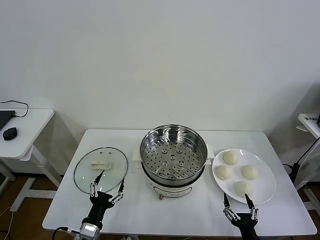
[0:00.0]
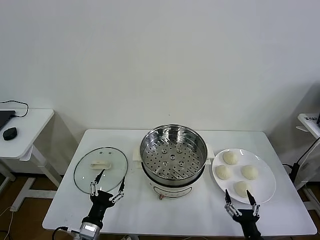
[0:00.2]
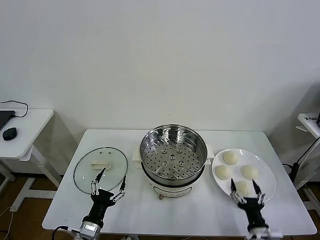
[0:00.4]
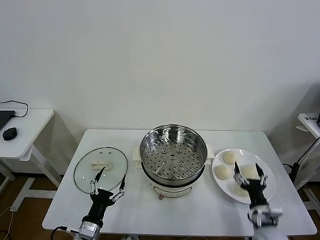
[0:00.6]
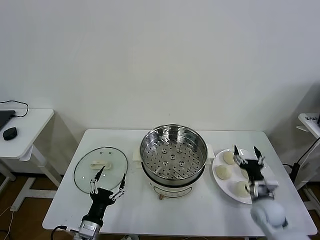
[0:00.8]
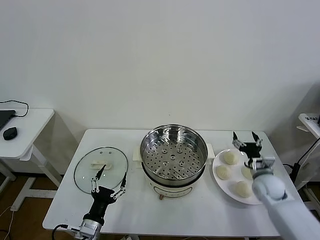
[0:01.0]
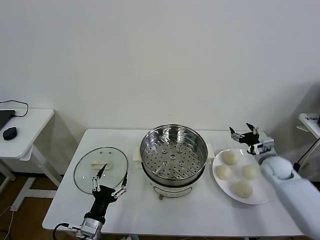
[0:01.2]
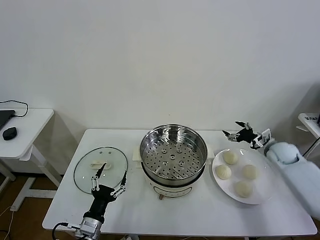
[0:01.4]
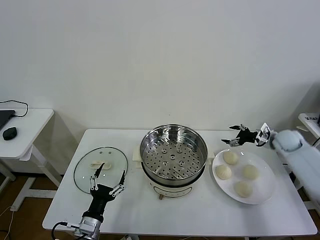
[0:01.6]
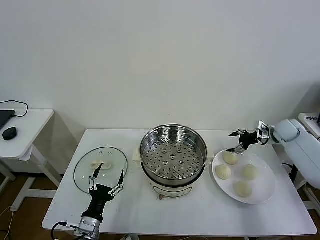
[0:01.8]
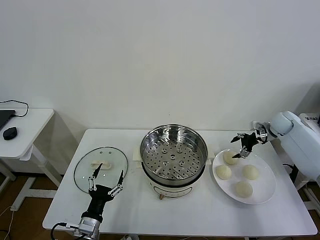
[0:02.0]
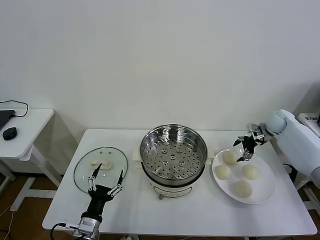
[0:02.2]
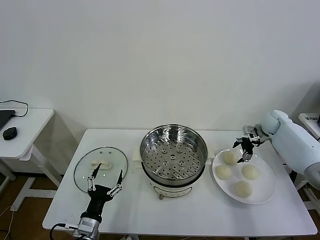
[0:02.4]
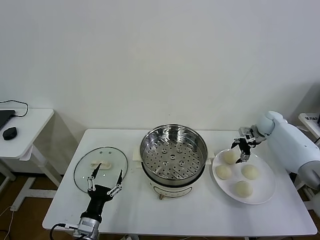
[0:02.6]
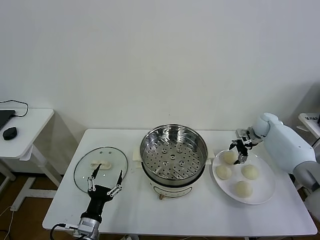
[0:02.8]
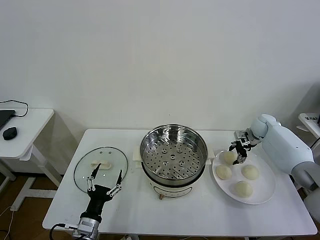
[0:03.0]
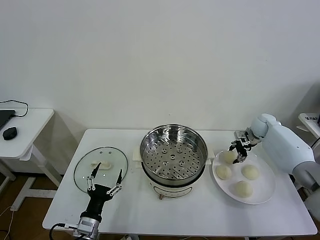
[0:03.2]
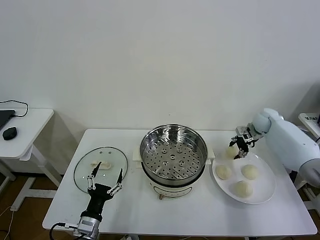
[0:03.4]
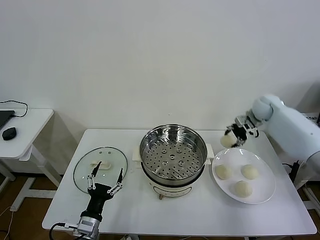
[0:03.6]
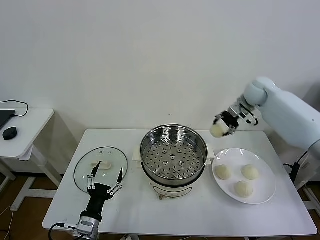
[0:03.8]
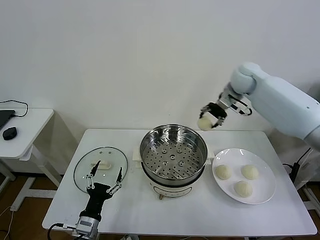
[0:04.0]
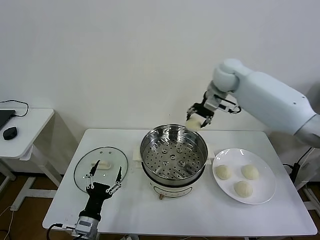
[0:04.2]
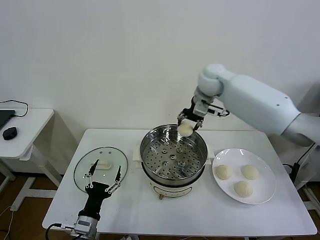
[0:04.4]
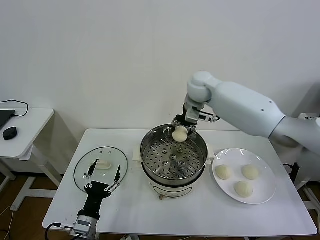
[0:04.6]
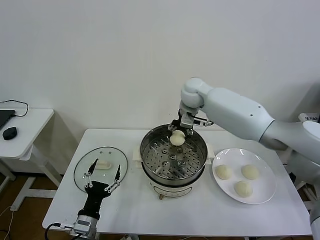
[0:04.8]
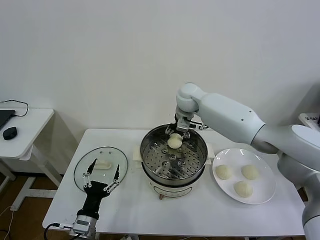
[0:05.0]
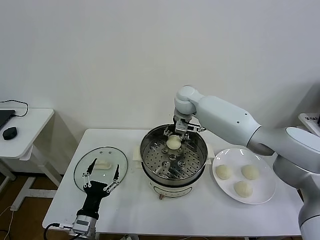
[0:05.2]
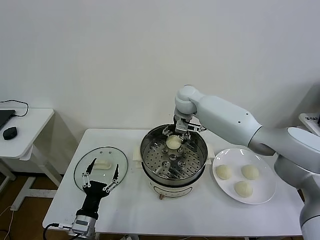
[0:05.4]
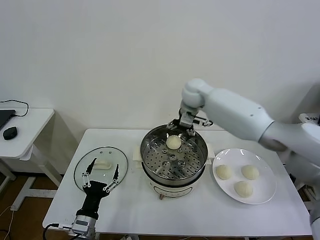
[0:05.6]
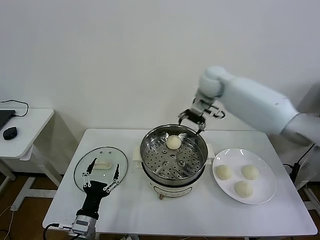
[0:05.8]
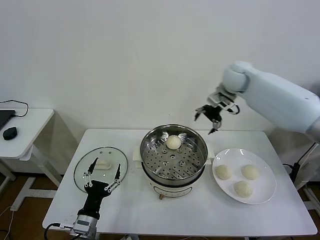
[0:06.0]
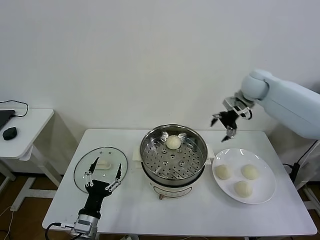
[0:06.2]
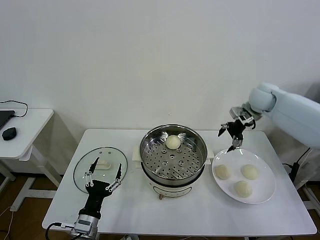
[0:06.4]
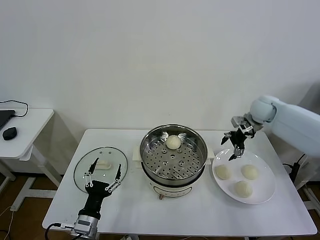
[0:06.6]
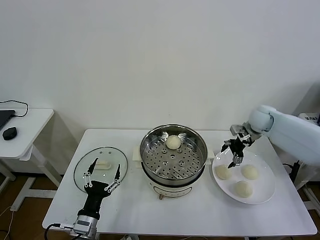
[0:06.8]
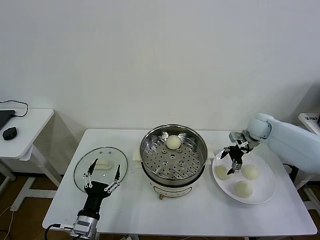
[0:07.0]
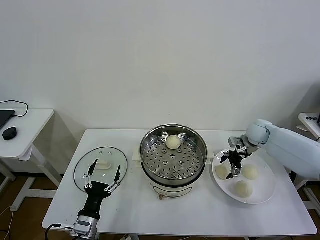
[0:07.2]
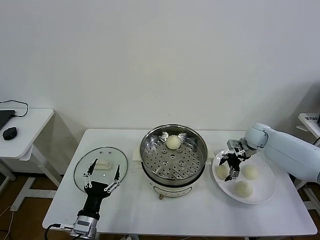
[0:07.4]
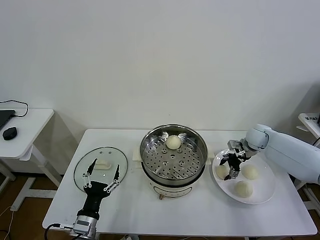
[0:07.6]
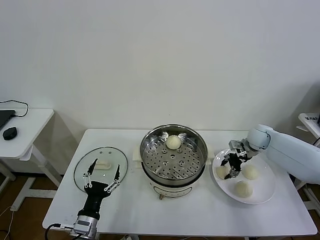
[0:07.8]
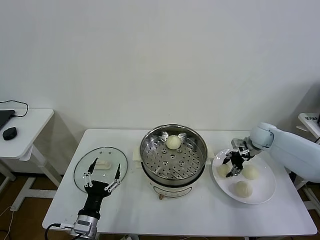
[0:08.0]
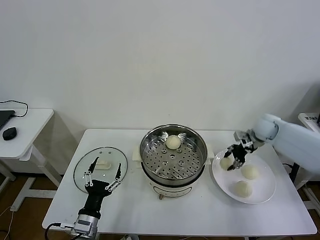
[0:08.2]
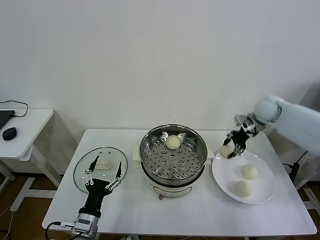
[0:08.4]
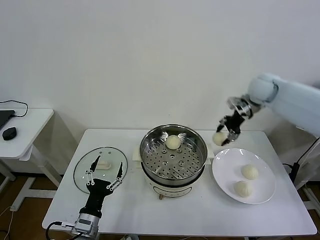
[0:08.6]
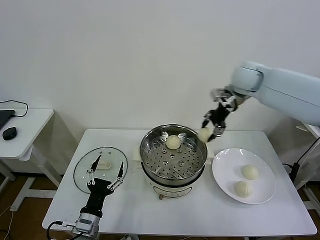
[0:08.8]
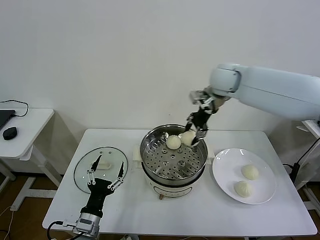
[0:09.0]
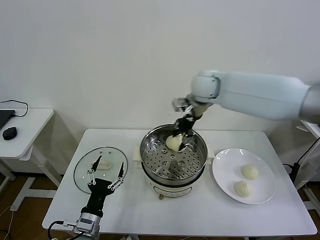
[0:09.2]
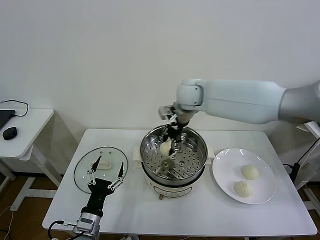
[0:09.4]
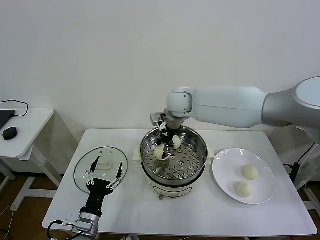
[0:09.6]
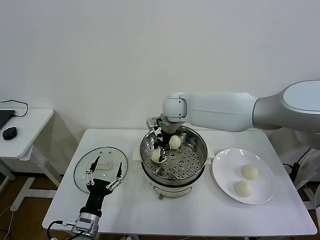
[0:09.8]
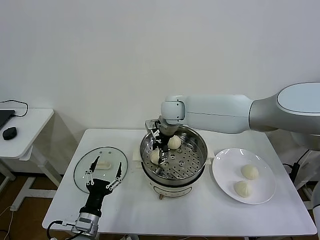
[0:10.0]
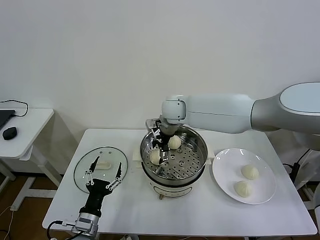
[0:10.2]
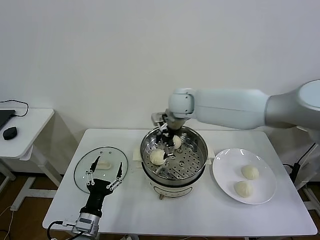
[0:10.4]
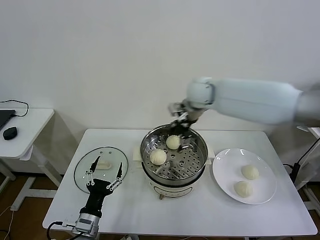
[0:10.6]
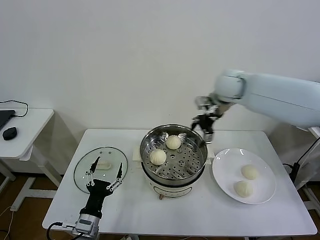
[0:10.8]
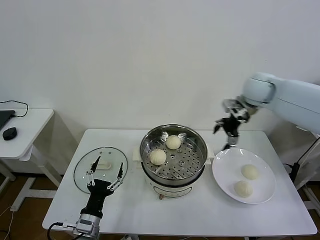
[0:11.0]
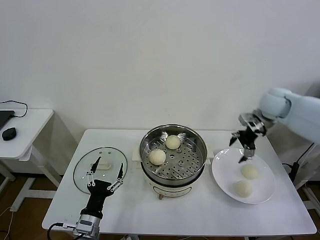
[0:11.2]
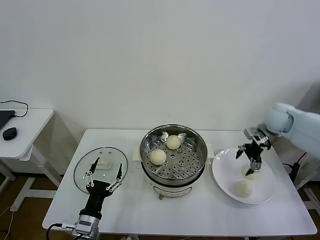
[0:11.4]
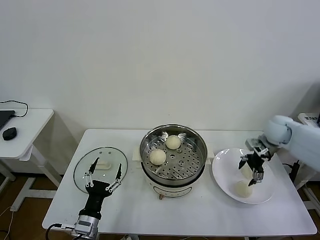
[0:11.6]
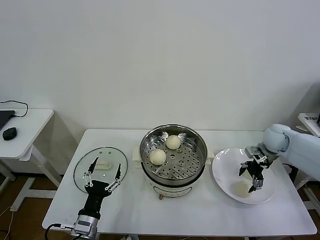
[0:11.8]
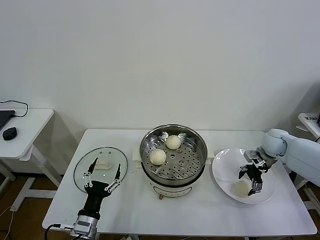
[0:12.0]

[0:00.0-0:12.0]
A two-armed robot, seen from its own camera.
Task of the whole recording: take steamed baozi put them in steamer then cover it.
Step, 0.0 to 3.0 s: Grasp the baozi in the plate with right gripper.
Step, 3.2 to 5.2 s: Place the baozi on the steamer with right gripper.
Step, 5.6 to 7.6 s: Grasp the baozi in the plate with right gripper.
Step, 7.8 to 10.0 s: Place the baozi on the steamer with right gripper.
1.6 to 3.0 s: The right gripper moves to the left and forward, about 10 cm, and closes.
3.0 to 4.4 s: The right gripper moves to the left and upward, some 35 cm.
4.4 to 6.0 s: The right gripper goes some 20 cm to the right, and opens its fingers.
6.0 to 7.6 s: The right gripper goes roughly 20 cm downward, and closes up.
7.6 to 9.0 s: The right gripper is displaced to the left and upward by approximately 35 cm.
9.0 to 10.4 s: The right gripper opens its fingers.
10.4 to 12.0 s: The right gripper travels to the right and downward by roughly 35 cm.

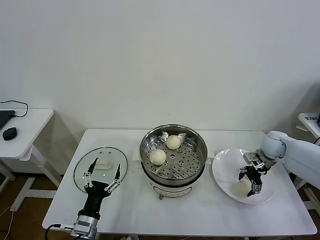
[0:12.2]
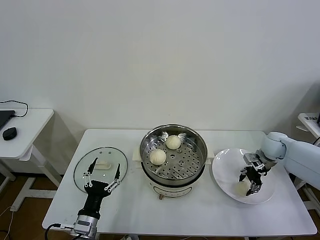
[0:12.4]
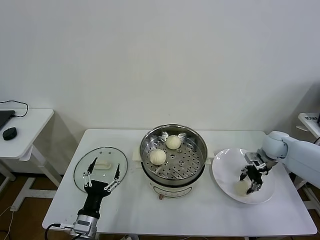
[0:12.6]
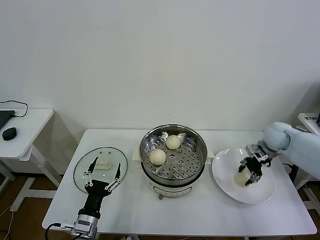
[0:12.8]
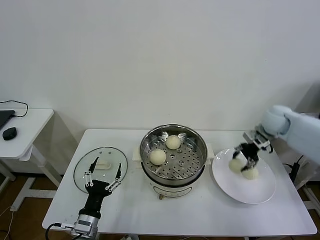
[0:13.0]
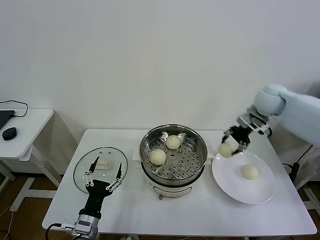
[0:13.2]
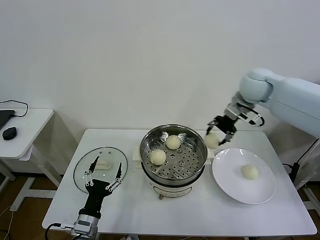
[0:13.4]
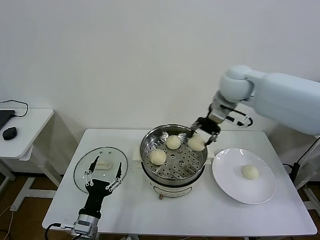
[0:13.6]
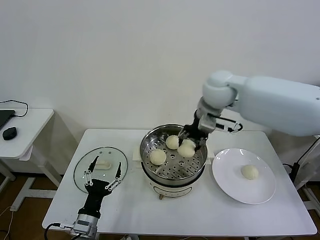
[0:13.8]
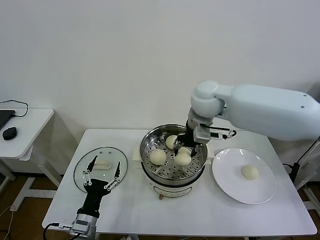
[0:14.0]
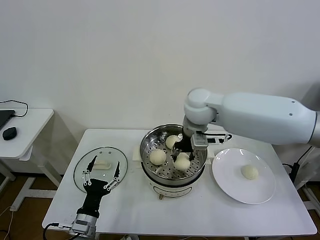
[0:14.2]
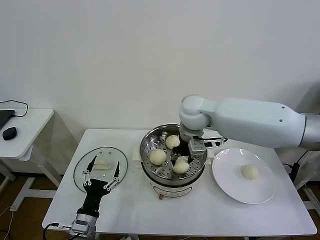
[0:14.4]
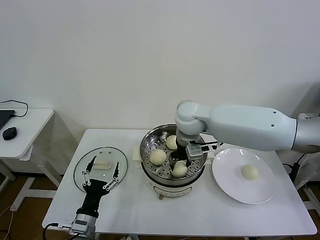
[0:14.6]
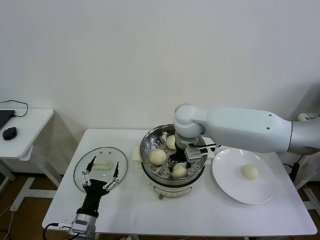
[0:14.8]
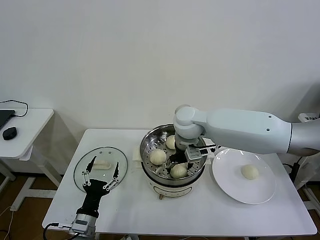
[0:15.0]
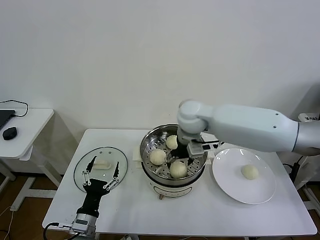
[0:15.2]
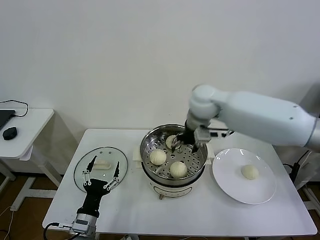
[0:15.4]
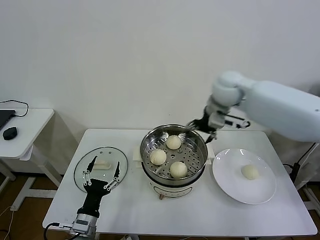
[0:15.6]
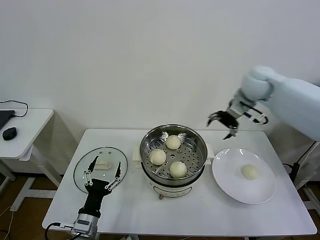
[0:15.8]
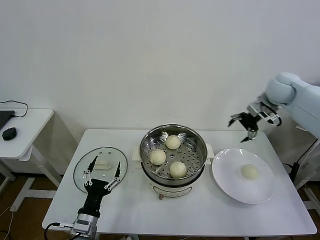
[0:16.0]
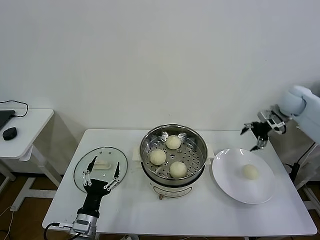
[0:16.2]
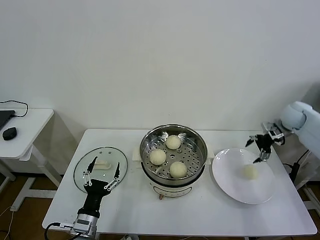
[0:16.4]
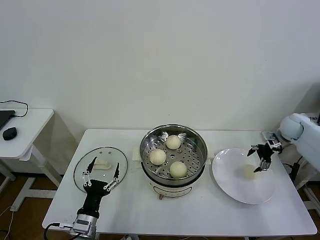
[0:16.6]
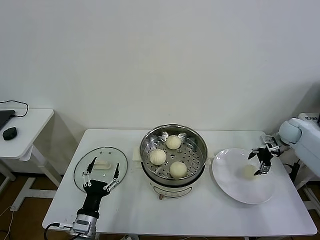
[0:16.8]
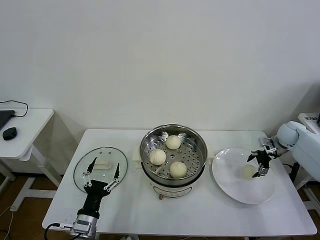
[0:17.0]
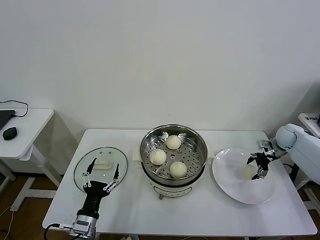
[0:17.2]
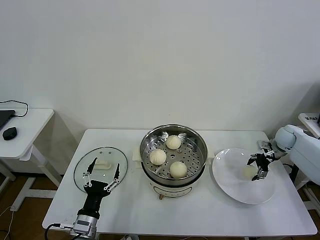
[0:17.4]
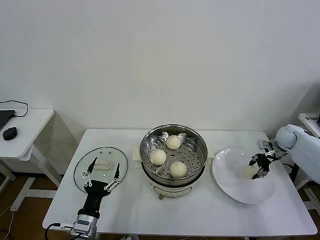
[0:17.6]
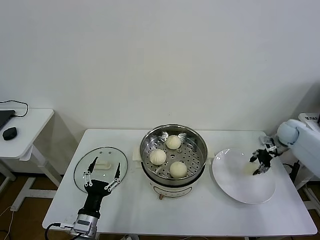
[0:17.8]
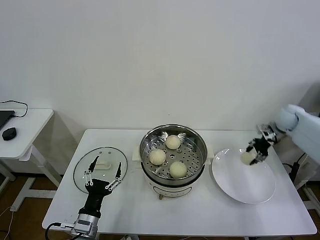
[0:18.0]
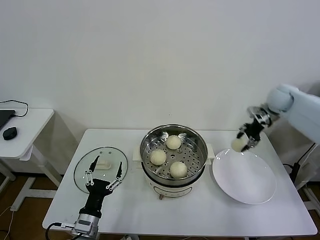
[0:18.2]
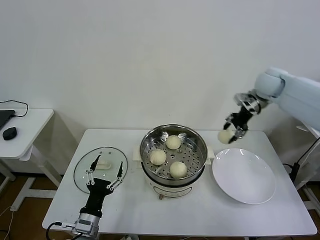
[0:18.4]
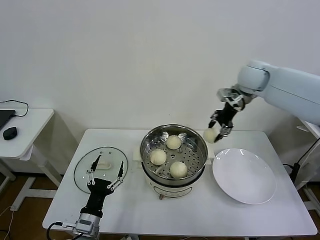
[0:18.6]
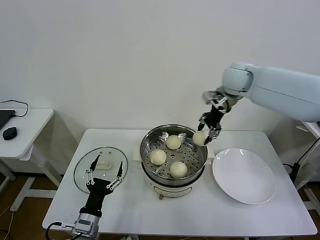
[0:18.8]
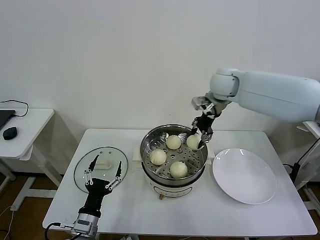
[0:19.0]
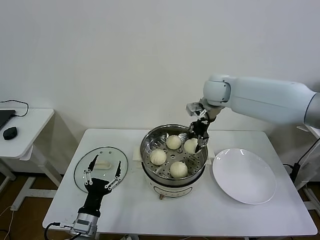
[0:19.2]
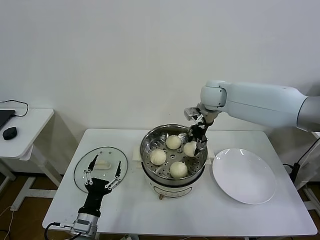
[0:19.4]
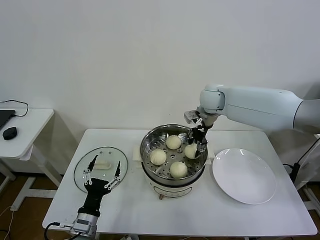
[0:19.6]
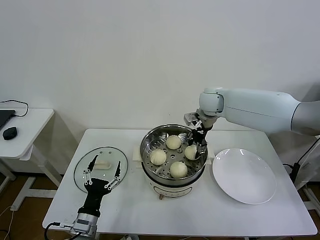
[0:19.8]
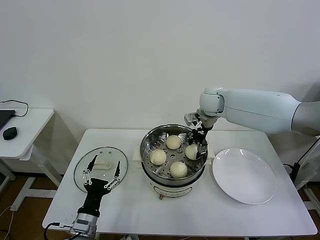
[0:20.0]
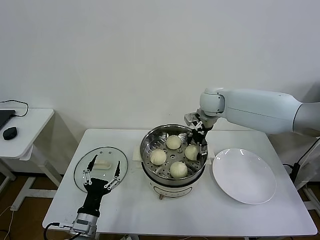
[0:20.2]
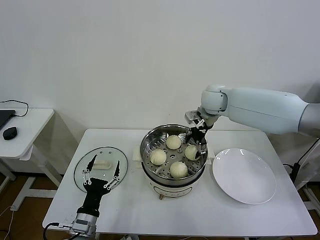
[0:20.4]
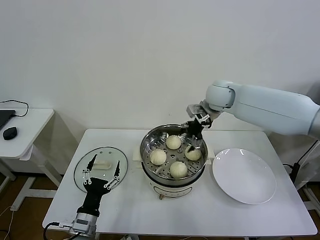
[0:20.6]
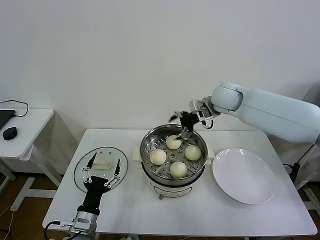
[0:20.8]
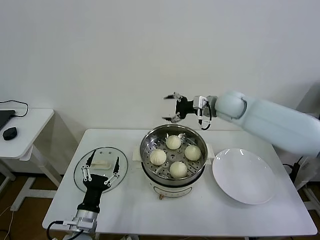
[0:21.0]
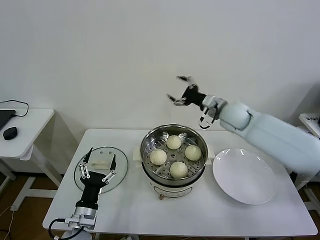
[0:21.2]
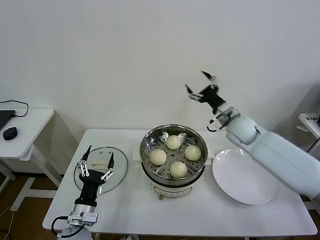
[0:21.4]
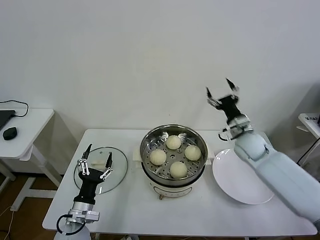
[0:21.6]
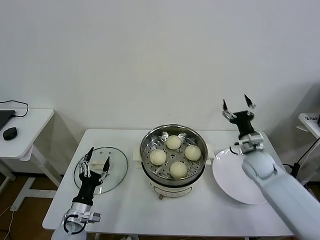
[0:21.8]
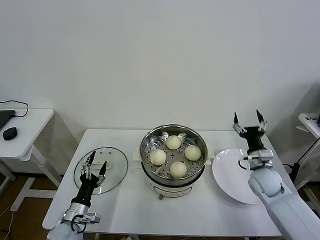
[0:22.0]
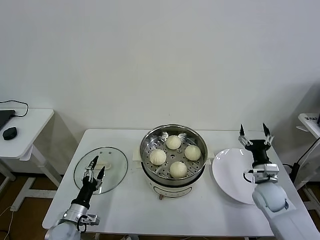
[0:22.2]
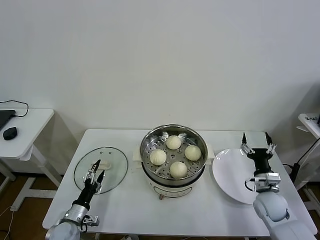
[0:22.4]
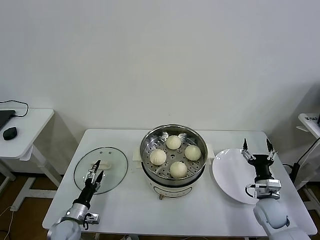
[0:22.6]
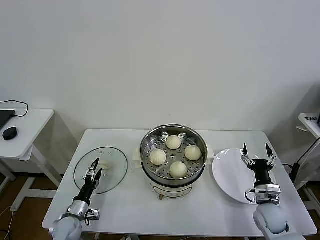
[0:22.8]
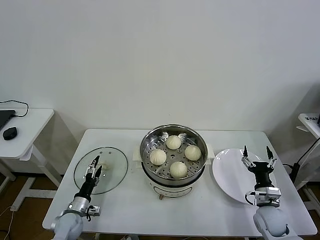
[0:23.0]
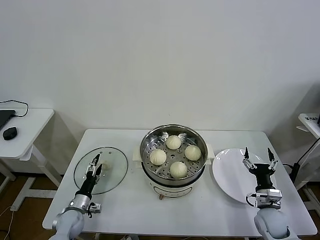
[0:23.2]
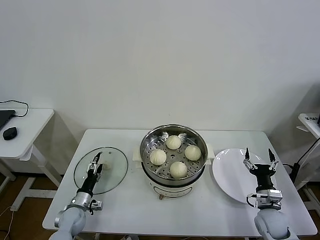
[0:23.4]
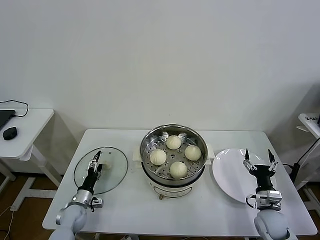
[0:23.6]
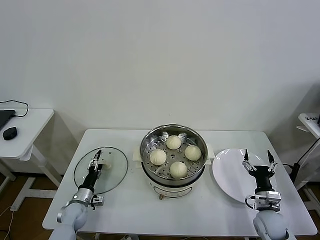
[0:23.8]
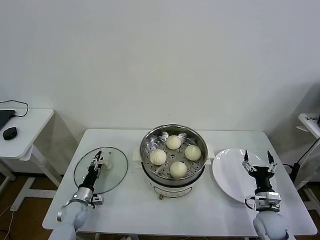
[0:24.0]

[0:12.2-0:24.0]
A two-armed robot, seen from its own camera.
Task of the whole recording: take steamed baozi put them in steamer then cover it.
Step, 12.6 to 15.0 s: Place the baozi on the steamer with right gripper.
Step, 15.2 to 17.6 s: Grasp the baozi in the plate with right gripper.
Step, 17.8 to 20.0 s: Place the baozi on the steamer with right gripper.
12.2 to 13.6 s: The right gripper travels to the left and upward by about 35 cm, and closes its fingers.
13.6 to 15.2 s: The right gripper goes approximately 10 cm to the left and downward, and opens.
15.2 to 16.6 s: The right gripper shifts roughly 40 cm to the right.
16.6 to 18.2 s: The right gripper goes about 20 cm upward and to the left, and closes up.
18.2 to 19.6 s: The right gripper heads to the left, covering roughly 20 cm.
19.6 to 21.0 s: The right gripper travels to the right by approximately 5 cm, and opens.
21.0 to 22.6 s: The right gripper goes roughly 40 cm downward, backward and to the right; the left gripper travels downward, to the left and forward by about 15 cm.
22.6 to 24.0 s: The left gripper goes roughly 10 cm forward.
